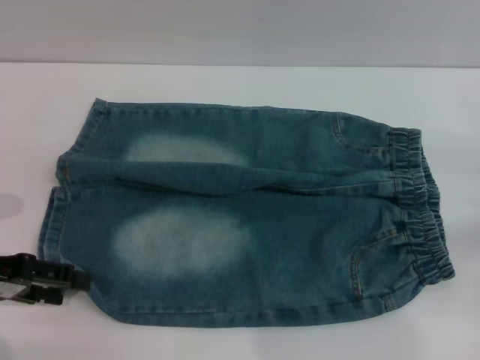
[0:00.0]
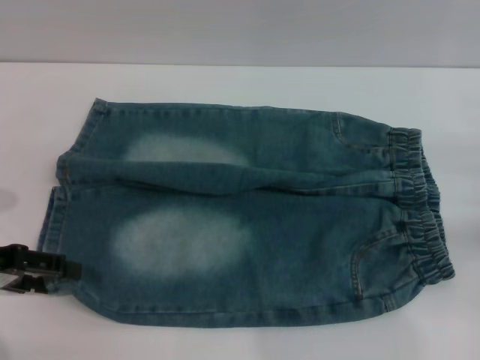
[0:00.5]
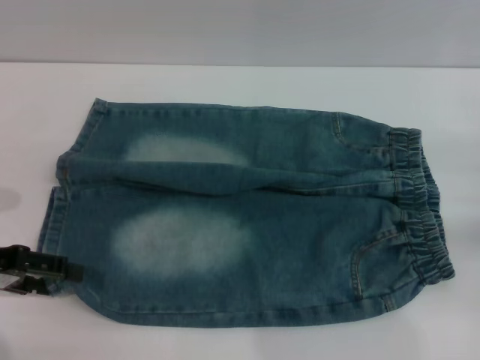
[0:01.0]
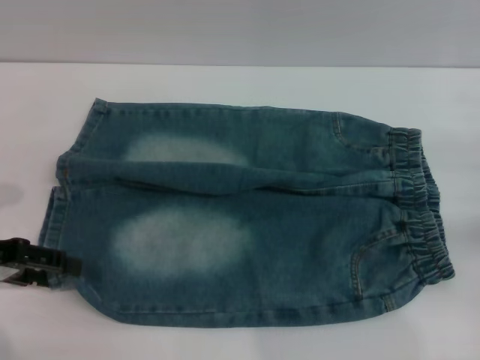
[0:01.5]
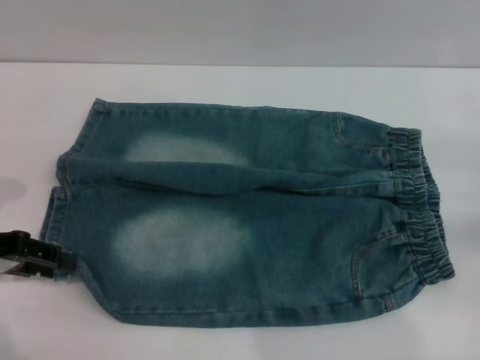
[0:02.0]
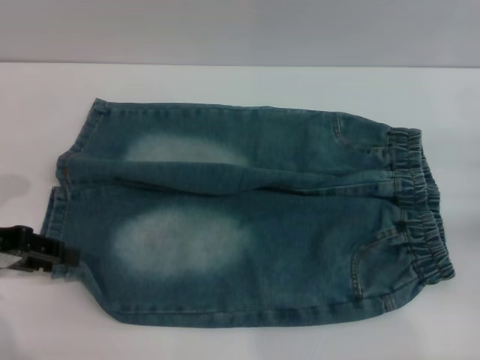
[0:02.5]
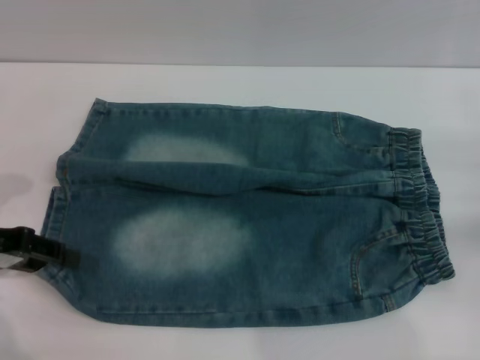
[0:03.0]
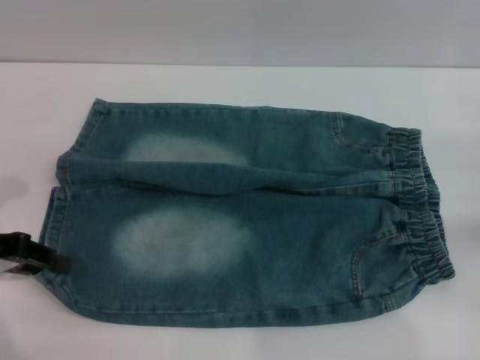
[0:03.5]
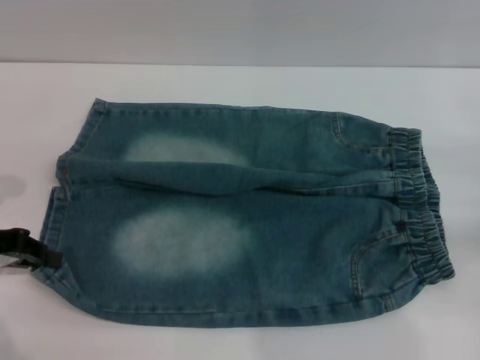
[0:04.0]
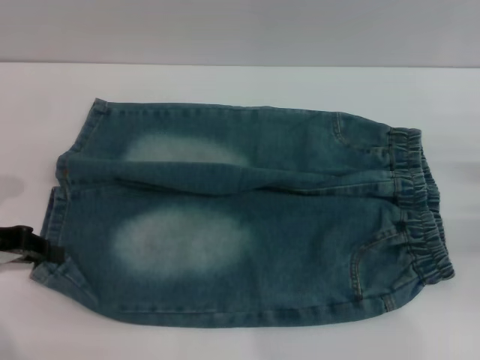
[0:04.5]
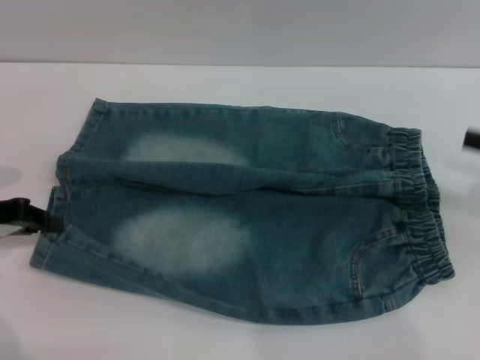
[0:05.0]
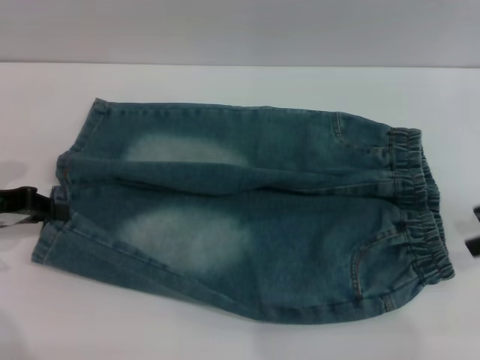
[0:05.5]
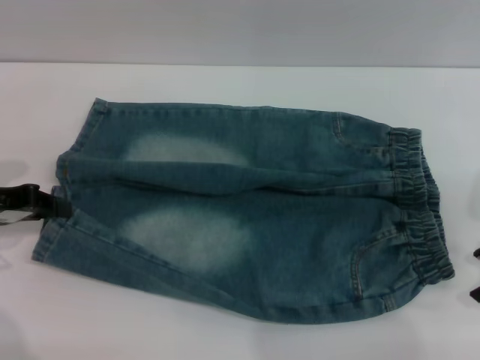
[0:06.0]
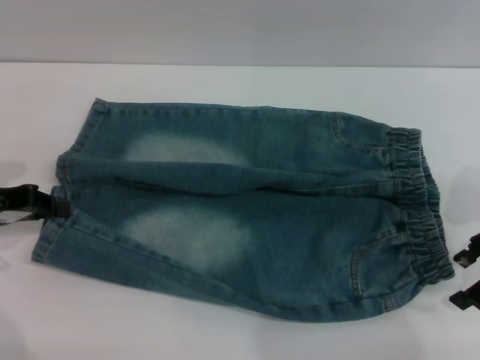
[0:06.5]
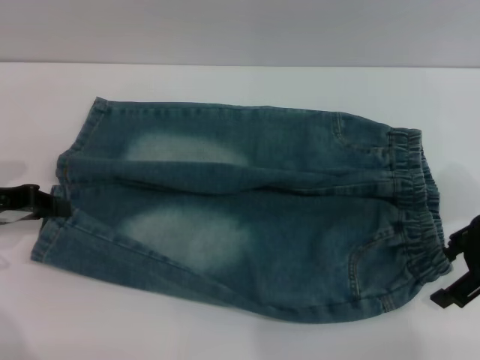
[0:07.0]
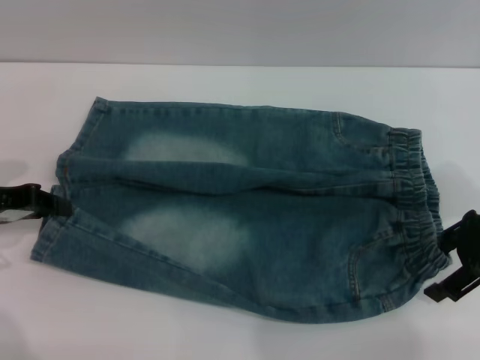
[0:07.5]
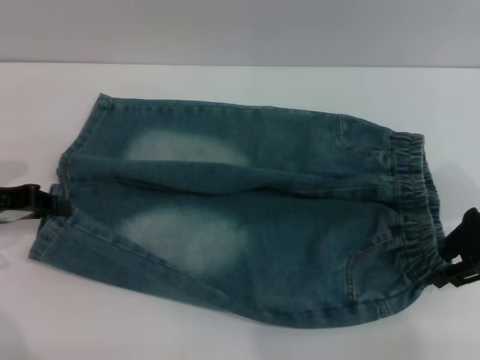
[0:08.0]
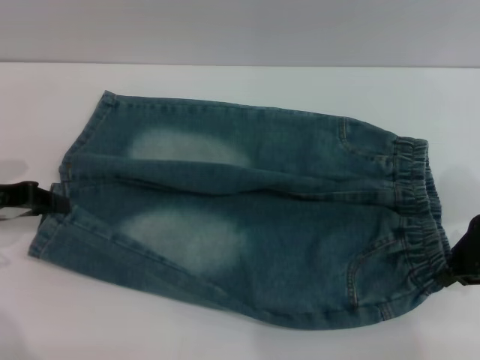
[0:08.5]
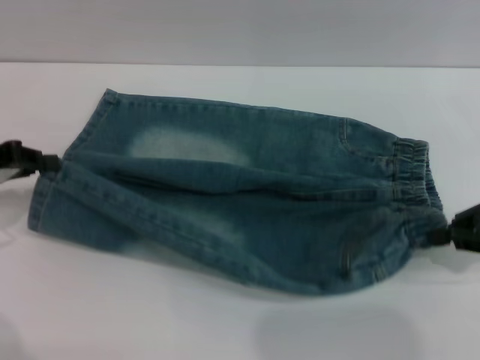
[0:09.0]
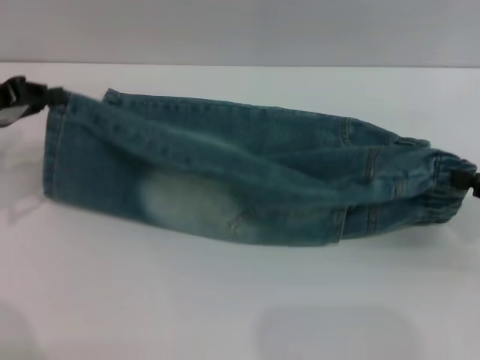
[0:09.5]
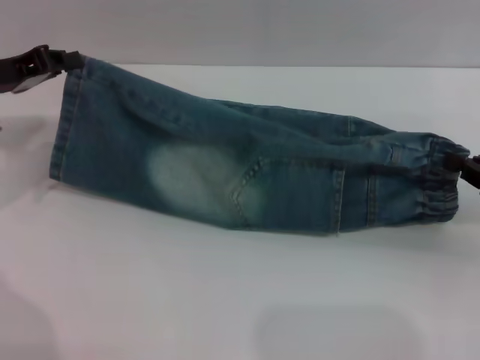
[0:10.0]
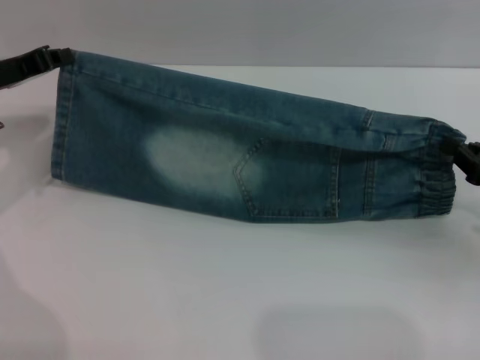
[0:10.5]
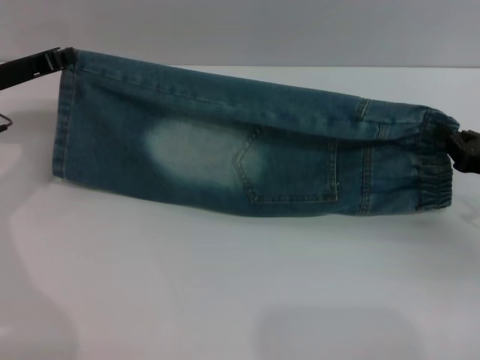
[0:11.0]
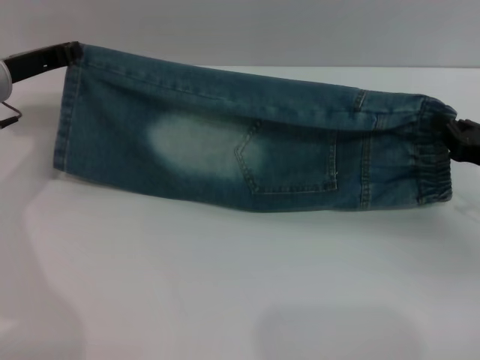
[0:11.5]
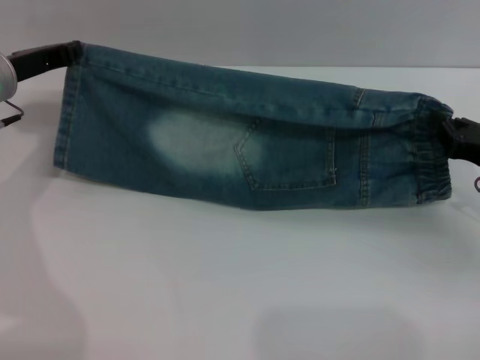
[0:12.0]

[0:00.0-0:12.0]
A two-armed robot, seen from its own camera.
0.0 to 2.0 s: There are only small adjustments of the grippers.
2.0 to 4.0 s: The left gripper closes.
4.0 to 6.0 s: The right gripper travels upward and to the left by about 10 cm.
6.0 to 8.0 s: The right gripper closes.
8.0 to 10.0 s: The left gripper travels forward by some 5 cm. Meanwhile the right gripper is displaced to the right and downward by some 10 cm, and closes its fingers.
10.0 to 12.0 s: The right gripper ends up roughly 5 cm from where it was; the left gripper shifts by about 5 cm.

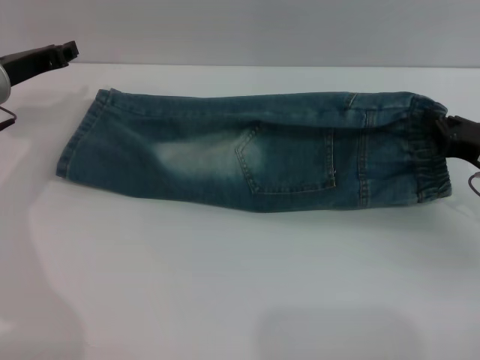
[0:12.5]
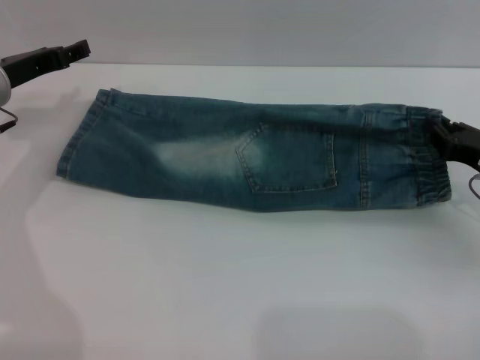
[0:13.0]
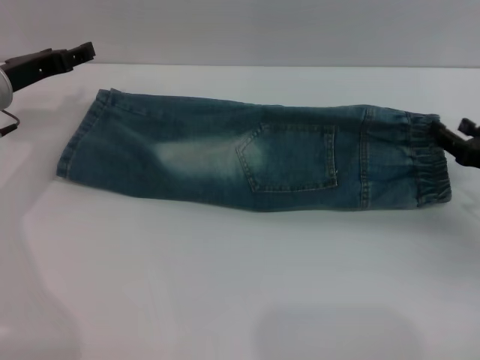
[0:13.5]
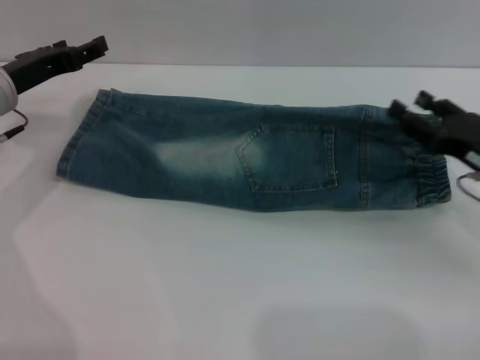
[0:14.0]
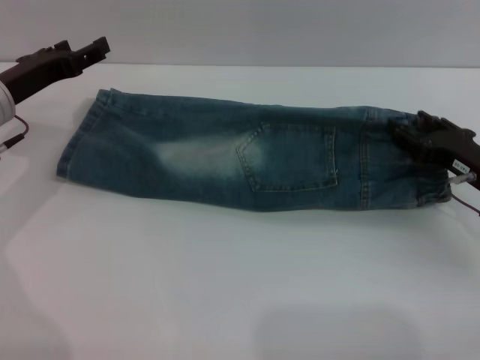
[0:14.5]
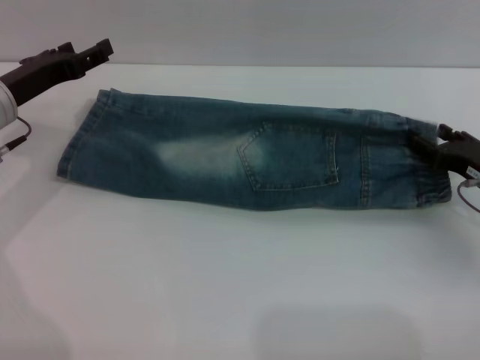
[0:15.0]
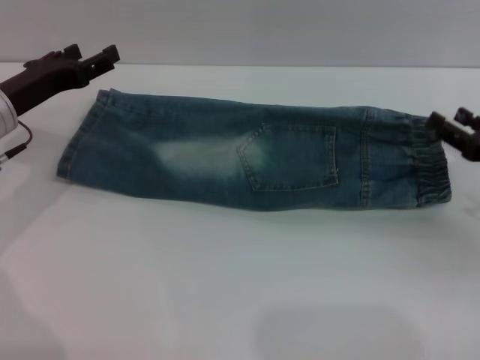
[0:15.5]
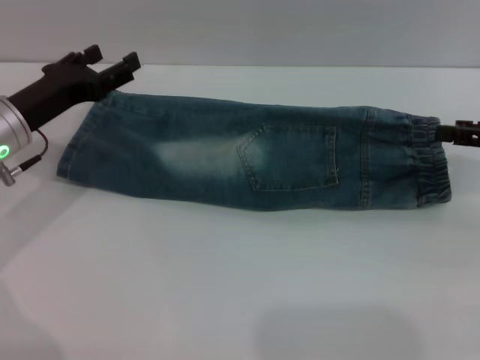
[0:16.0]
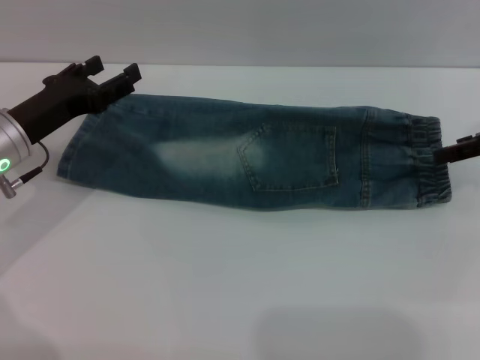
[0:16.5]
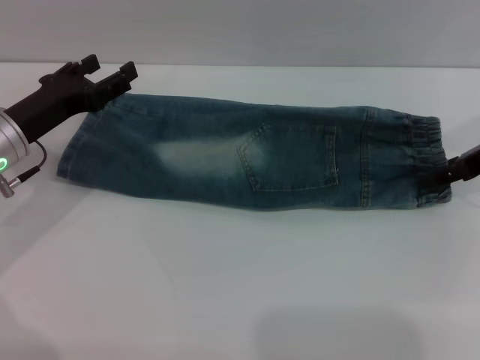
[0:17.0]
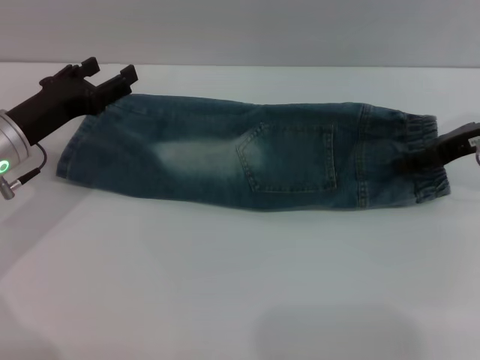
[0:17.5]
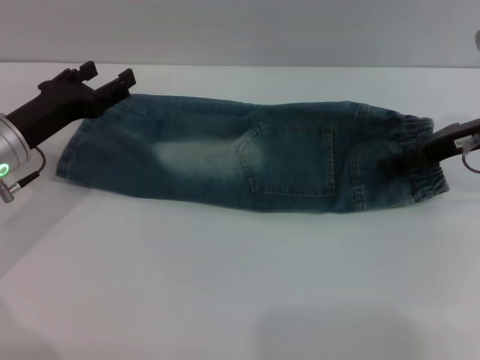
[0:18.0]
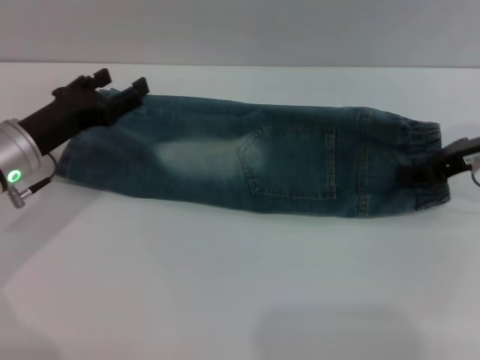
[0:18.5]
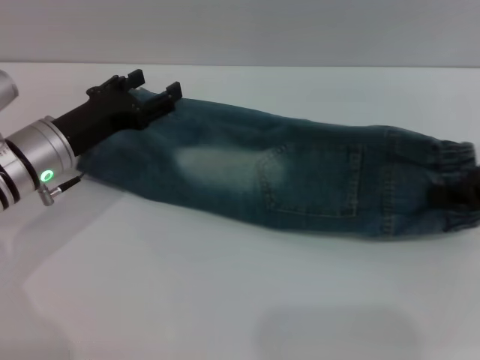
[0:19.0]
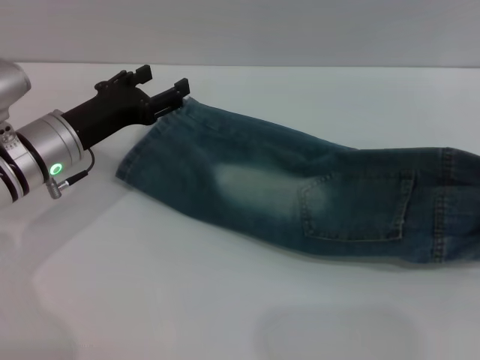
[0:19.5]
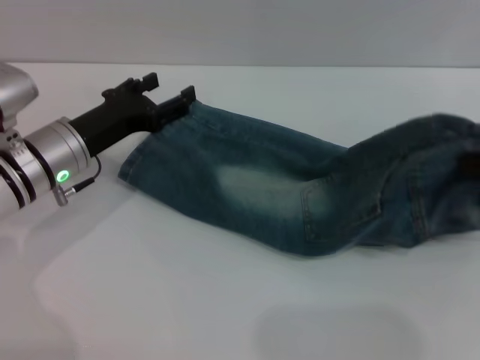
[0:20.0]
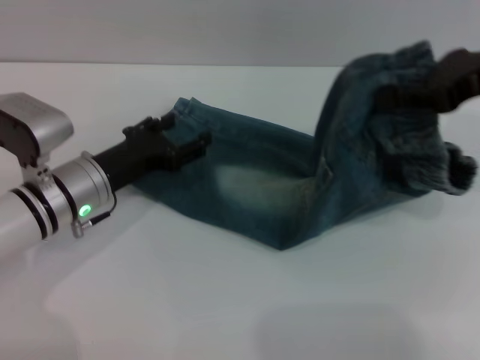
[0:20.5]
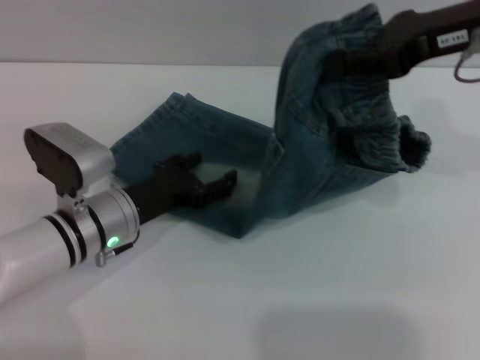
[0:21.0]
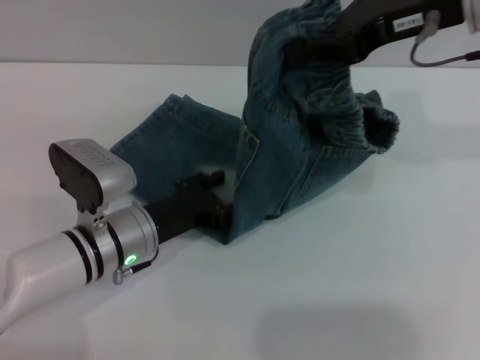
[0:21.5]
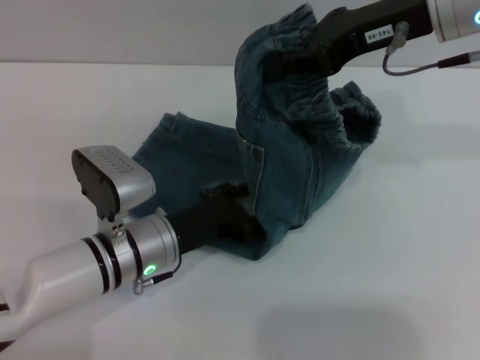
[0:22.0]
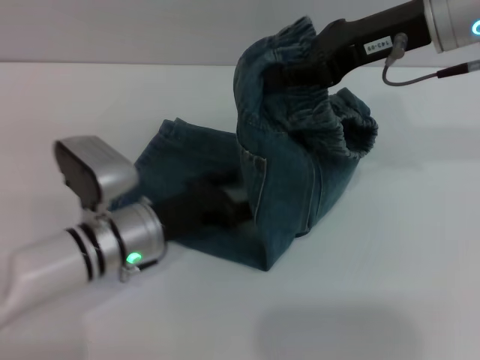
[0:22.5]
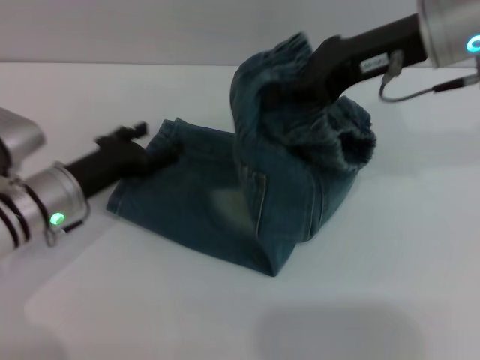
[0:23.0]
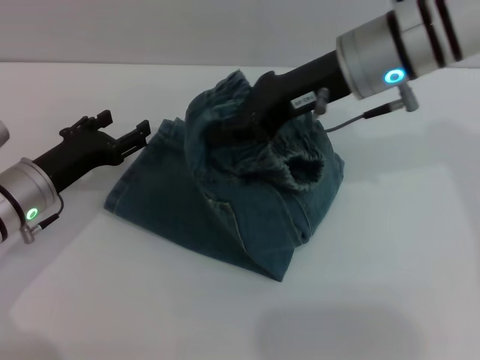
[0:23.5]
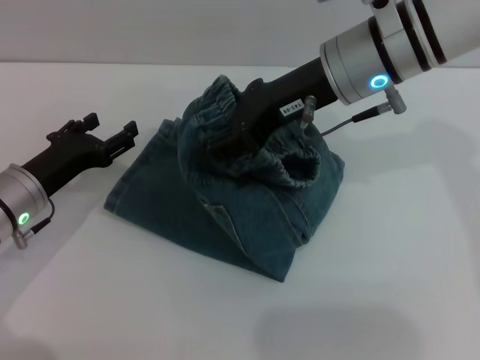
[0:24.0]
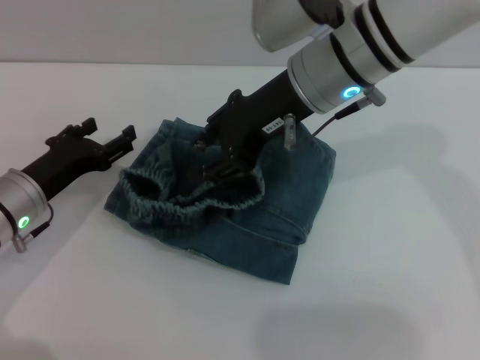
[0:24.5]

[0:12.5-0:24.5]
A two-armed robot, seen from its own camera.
12.5 to 14.5 s: The right gripper opens up, while the left gripper opens its fingers.
14.5 to 16.5 s: The right gripper heads upward and forward, covering approximately 15 cm.
16.5 to 18.5 s: The right gripper moves about 5 cm, and closes its fingers.
18.5 to 20.5 s: The left gripper goes about 5 cm to the right. Meanwhile the right gripper heads upward, covering some 10 cm.
20.5 to 22.5 s: The right gripper is displaced to the left by approximately 10 cm; the left gripper goes some 5 cm to the right.
22.5 to 24.5 s: The two grippers go about 10 cm to the left. The right gripper opens.

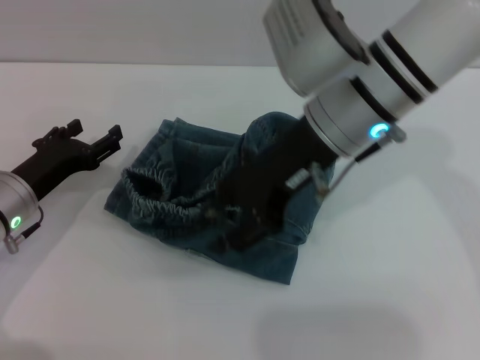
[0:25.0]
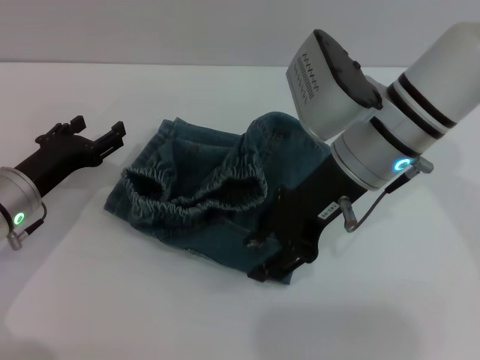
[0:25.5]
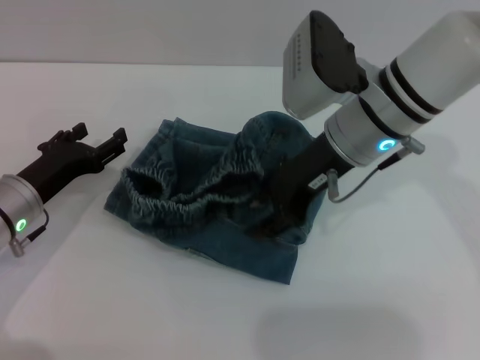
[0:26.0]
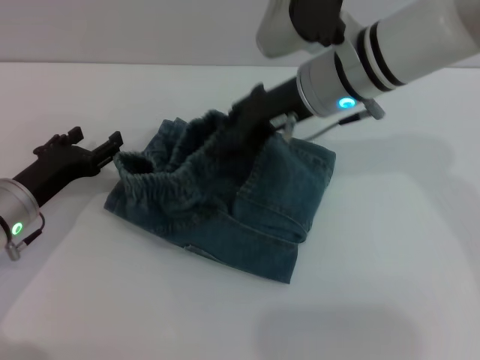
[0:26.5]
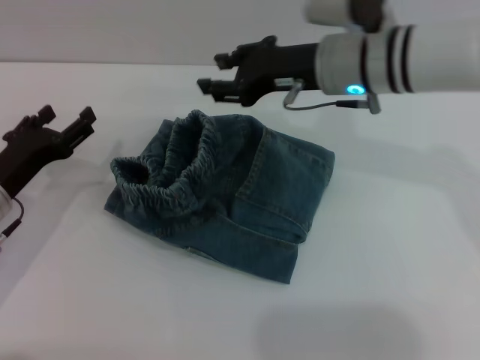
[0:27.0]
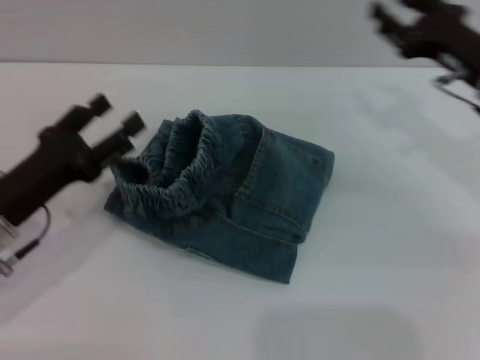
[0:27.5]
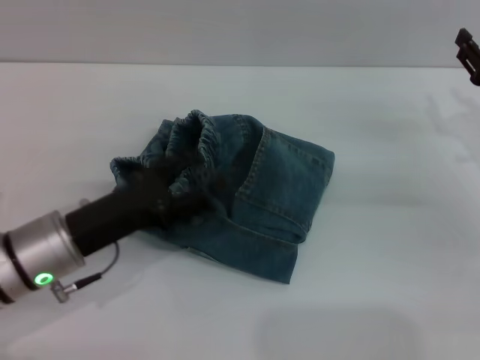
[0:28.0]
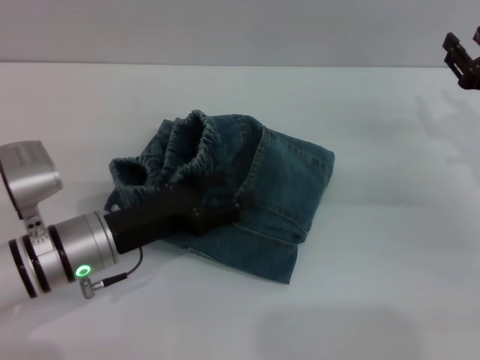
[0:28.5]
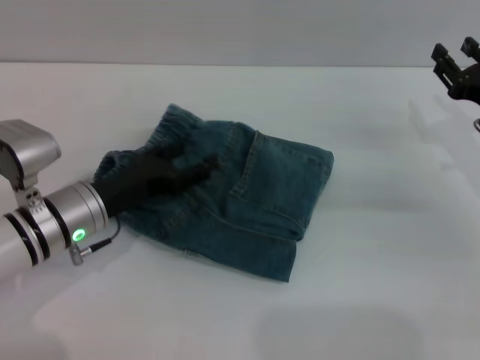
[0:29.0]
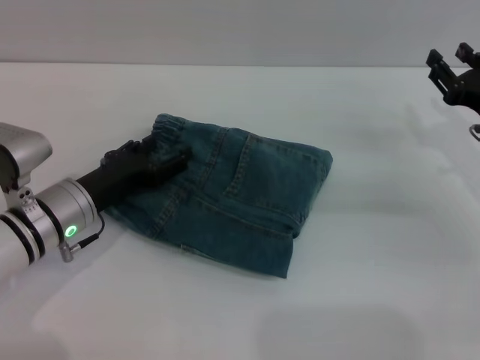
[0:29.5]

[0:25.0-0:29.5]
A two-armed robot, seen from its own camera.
25.0 to 27.0 s: The right gripper travels forward by some 5 cm.
27.0 to 29.5 s: The right gripper heads to the right and downward, covering approximately 20 cm. The left gripper heads to the right, covering roughly 5 cm.
